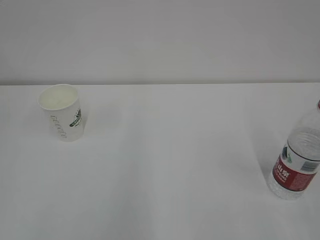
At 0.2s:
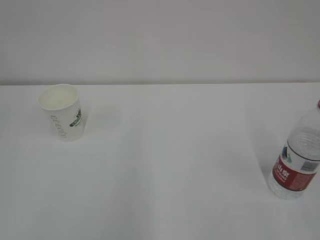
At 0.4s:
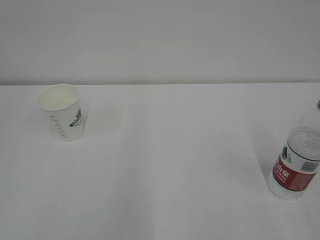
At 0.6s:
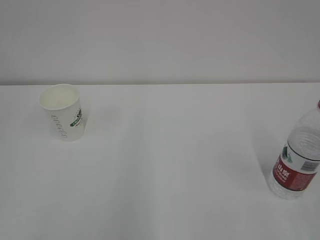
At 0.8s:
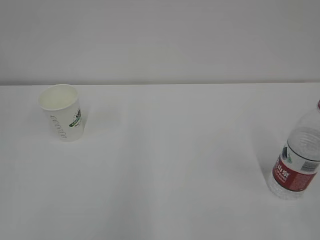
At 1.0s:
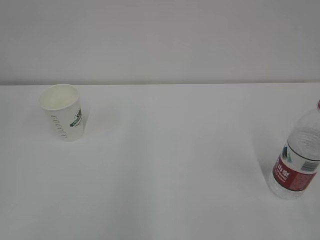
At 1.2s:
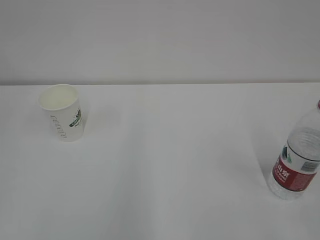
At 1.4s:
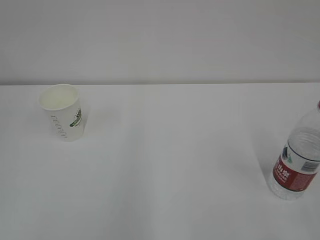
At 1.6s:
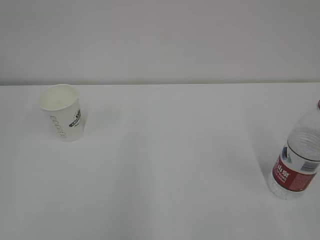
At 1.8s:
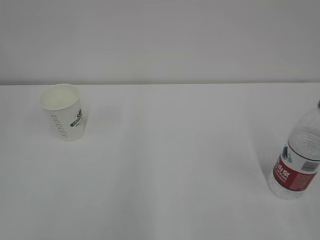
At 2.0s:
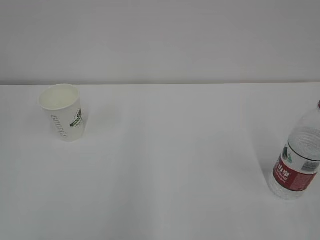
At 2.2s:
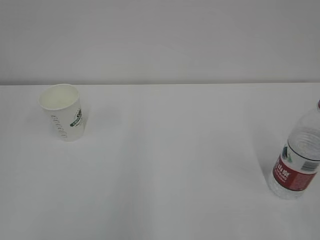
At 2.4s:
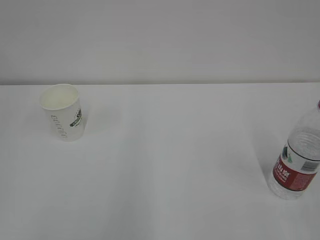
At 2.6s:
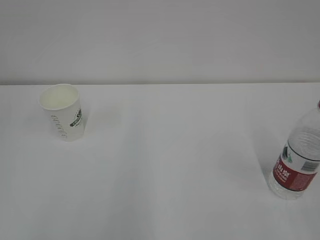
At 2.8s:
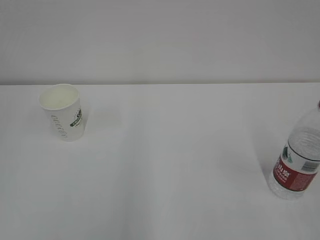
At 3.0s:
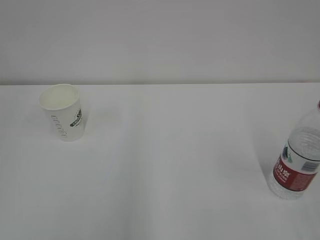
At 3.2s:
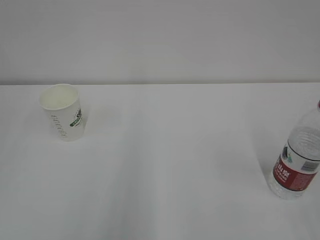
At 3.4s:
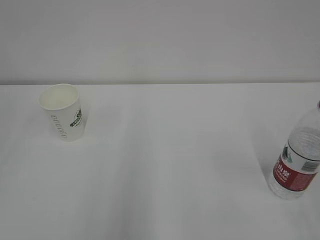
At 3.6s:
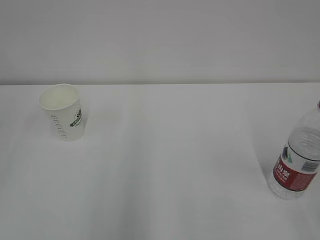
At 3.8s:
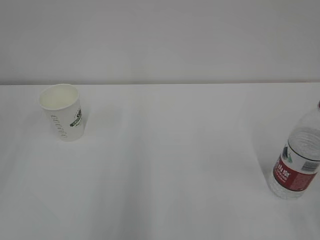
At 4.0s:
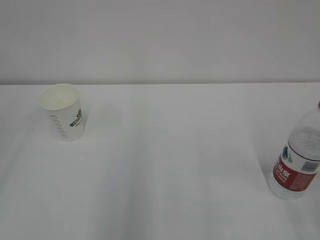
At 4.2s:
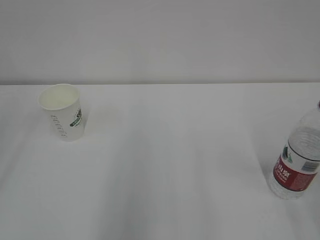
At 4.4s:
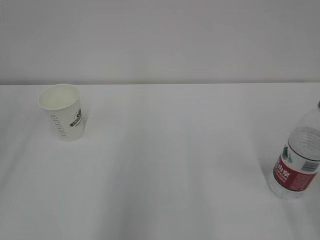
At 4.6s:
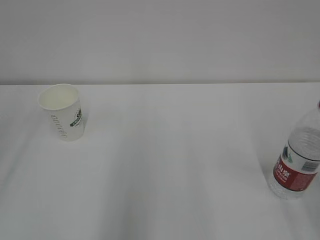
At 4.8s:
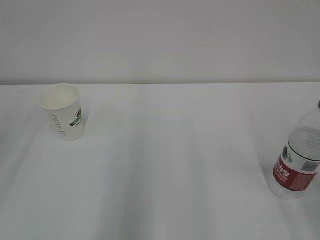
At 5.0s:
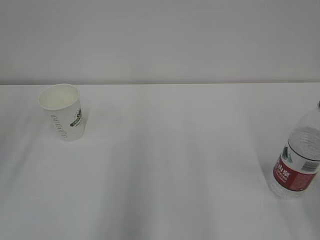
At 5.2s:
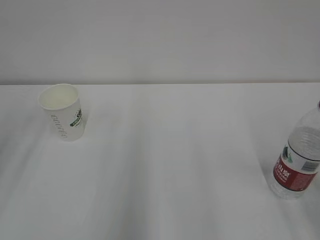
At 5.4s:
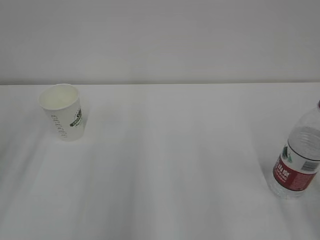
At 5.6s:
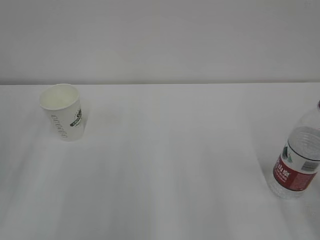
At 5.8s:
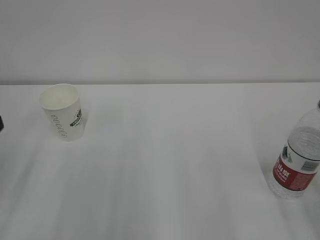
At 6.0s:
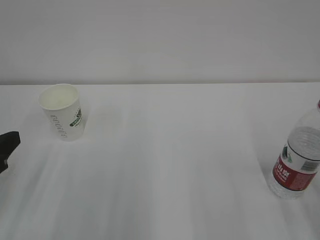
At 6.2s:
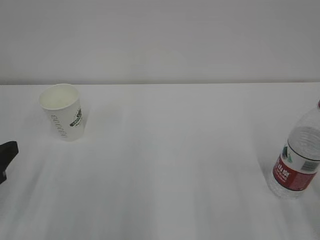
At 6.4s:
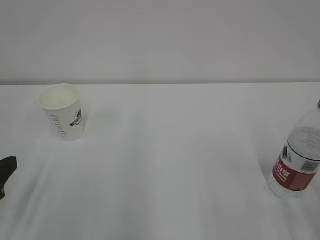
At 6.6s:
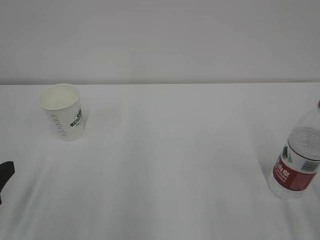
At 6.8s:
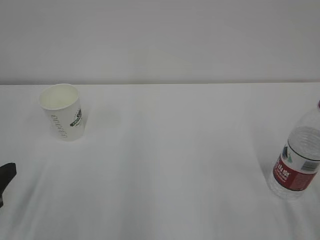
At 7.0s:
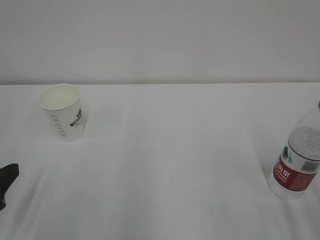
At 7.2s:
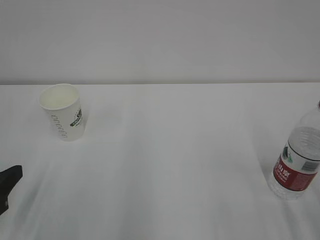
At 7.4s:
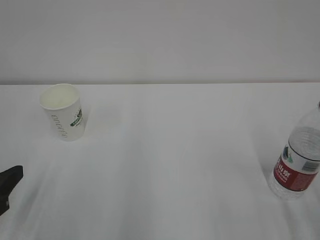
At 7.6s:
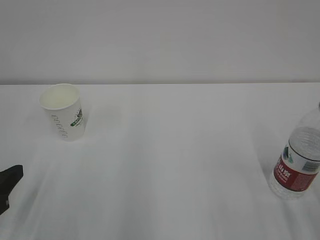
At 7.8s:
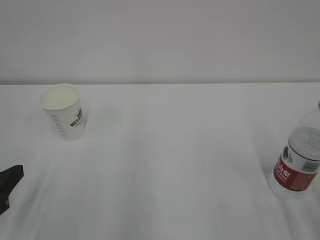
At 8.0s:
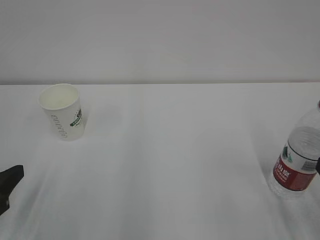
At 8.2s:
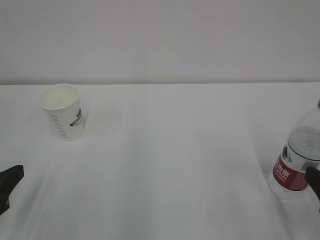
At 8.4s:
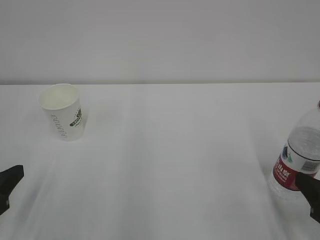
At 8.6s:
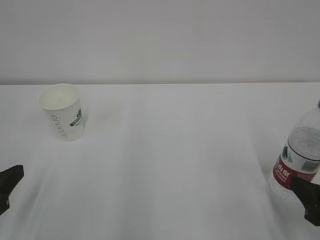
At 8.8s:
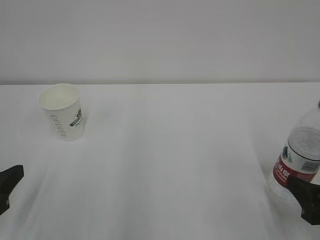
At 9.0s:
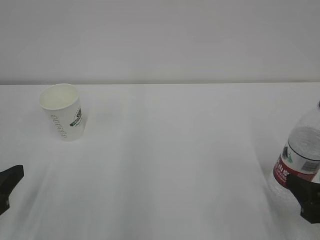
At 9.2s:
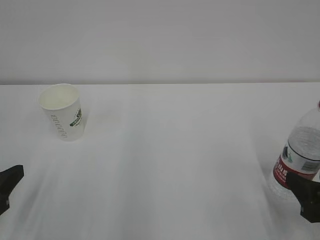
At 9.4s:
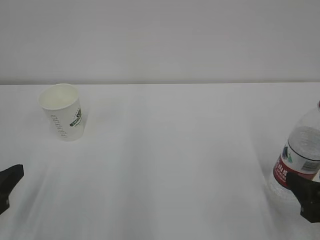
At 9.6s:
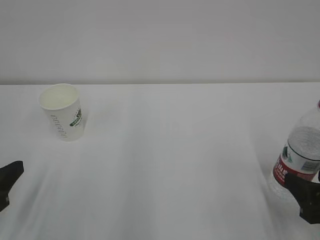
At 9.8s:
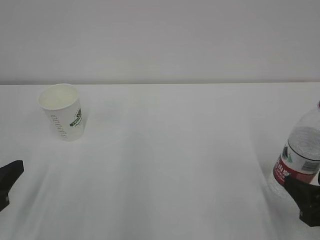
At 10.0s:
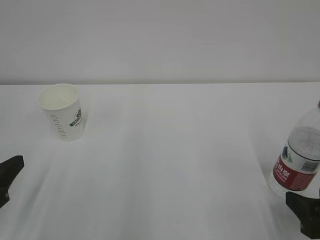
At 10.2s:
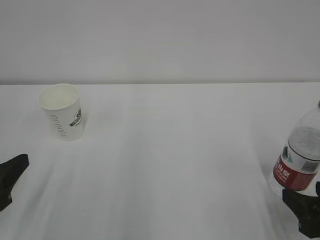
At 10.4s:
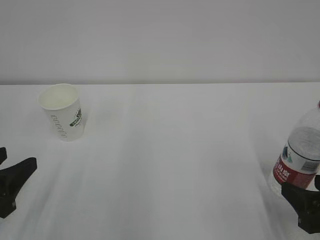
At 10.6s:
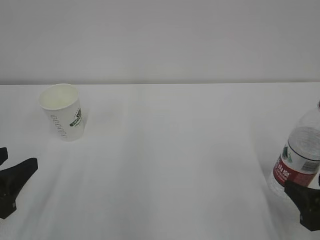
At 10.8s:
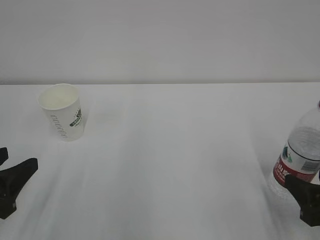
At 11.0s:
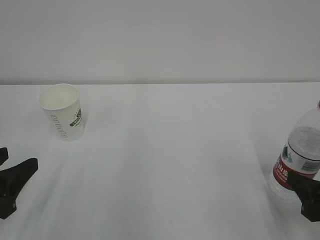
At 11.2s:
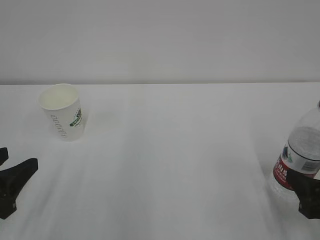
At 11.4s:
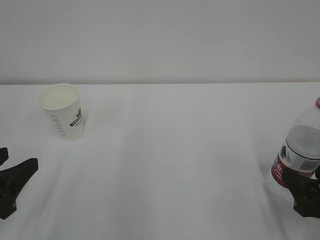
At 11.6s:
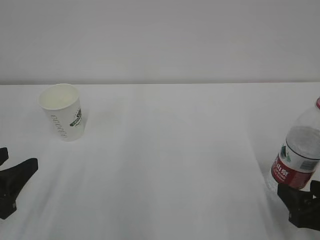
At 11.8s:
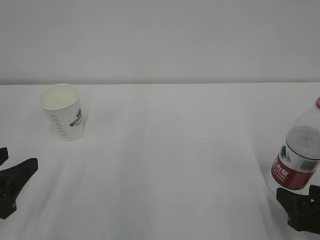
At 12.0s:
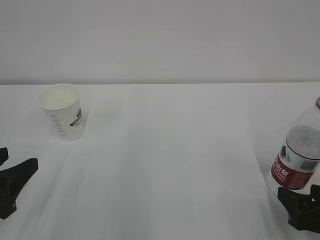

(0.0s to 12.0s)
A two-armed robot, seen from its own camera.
4.4s - 6.0s: The left gripper heads downward, covering about 15 cm.
6.0s - 7.6s: The grippers stay close to where they were, moving slightly.
7.6s - 9.0s: The right gripper travels downward by about 5 cm.
9.0s - 12.0s: There are only small adjustments of the grippers.

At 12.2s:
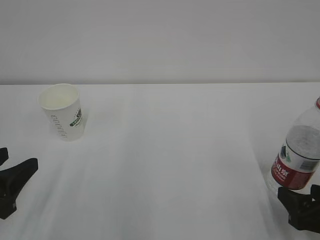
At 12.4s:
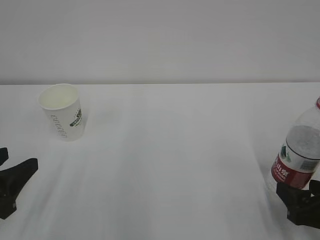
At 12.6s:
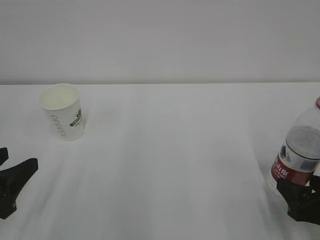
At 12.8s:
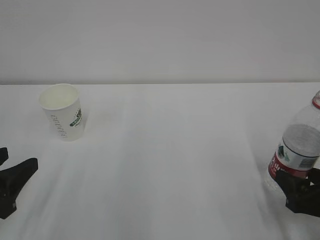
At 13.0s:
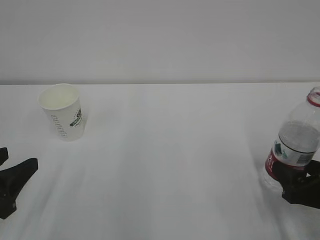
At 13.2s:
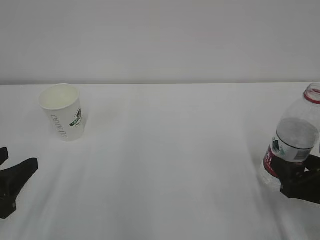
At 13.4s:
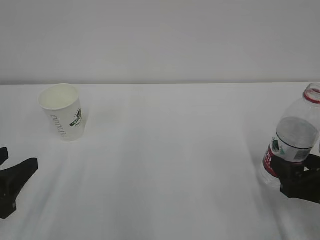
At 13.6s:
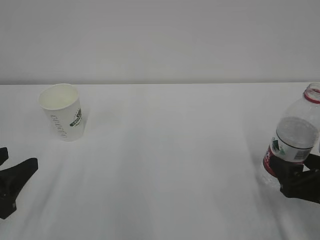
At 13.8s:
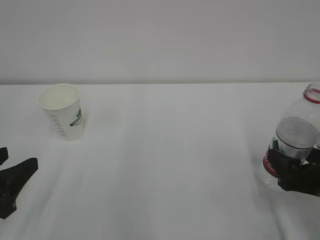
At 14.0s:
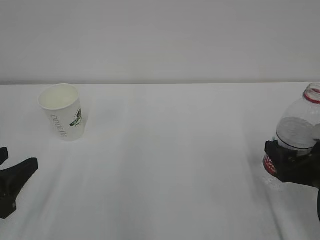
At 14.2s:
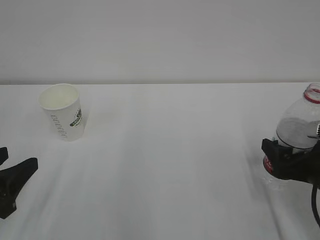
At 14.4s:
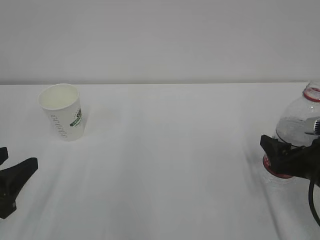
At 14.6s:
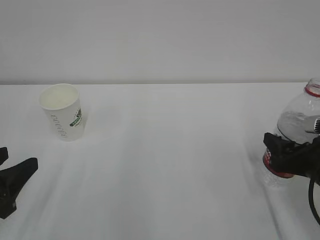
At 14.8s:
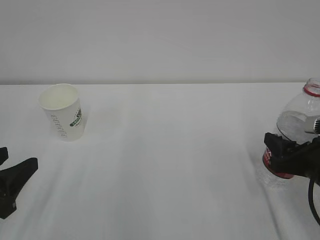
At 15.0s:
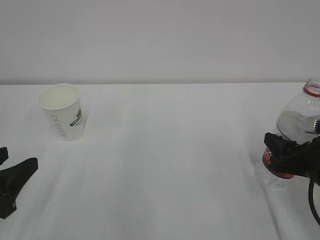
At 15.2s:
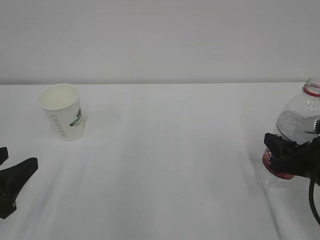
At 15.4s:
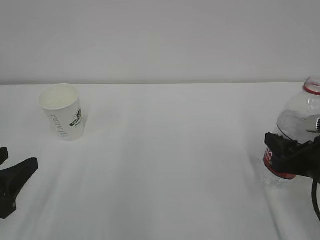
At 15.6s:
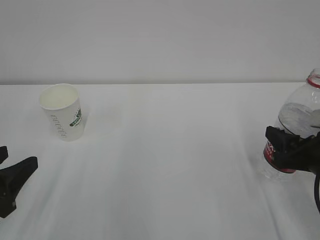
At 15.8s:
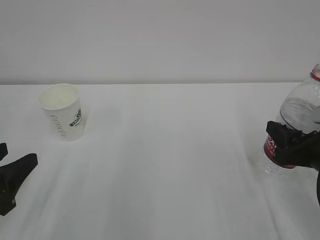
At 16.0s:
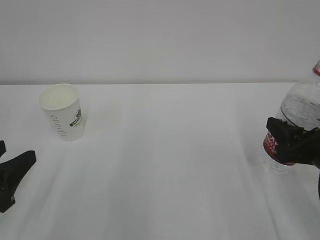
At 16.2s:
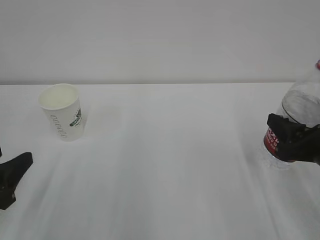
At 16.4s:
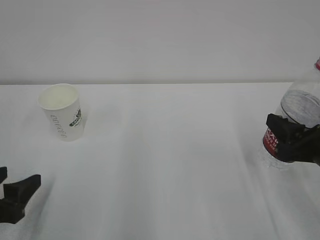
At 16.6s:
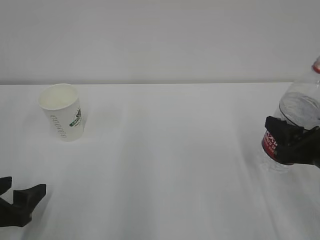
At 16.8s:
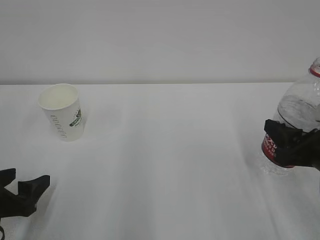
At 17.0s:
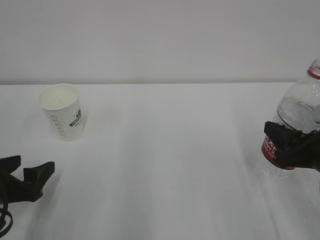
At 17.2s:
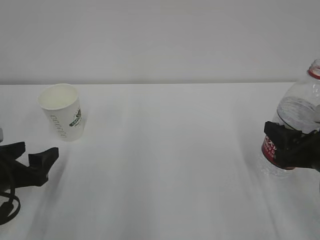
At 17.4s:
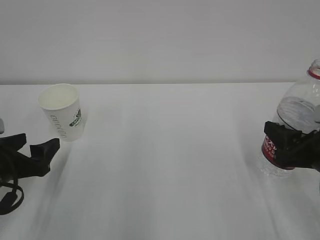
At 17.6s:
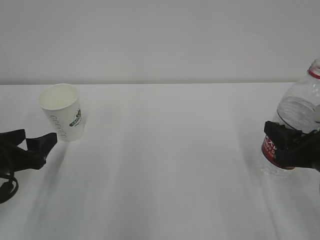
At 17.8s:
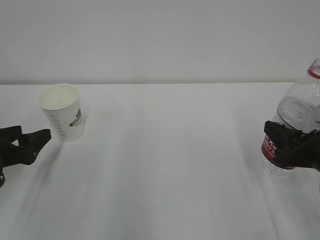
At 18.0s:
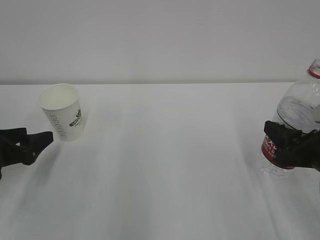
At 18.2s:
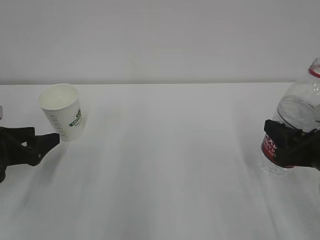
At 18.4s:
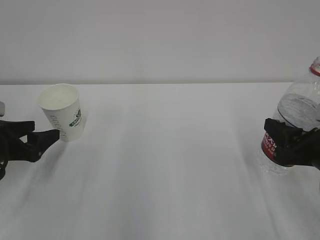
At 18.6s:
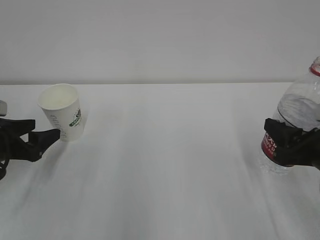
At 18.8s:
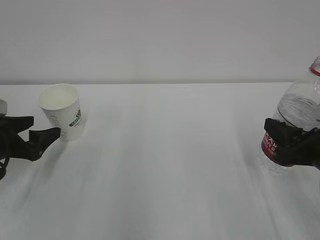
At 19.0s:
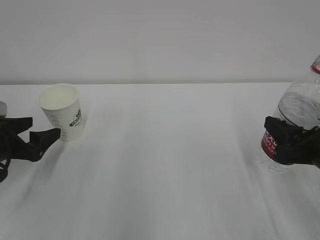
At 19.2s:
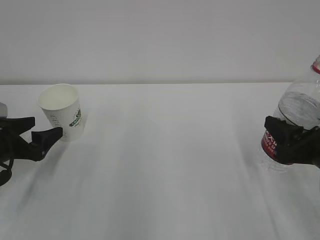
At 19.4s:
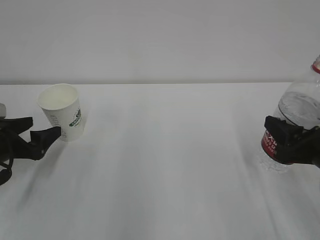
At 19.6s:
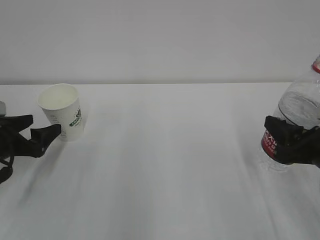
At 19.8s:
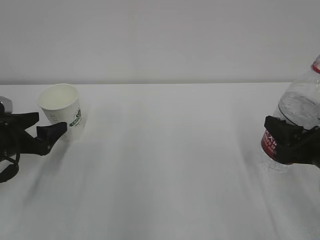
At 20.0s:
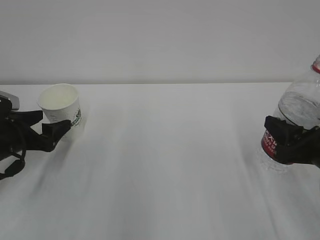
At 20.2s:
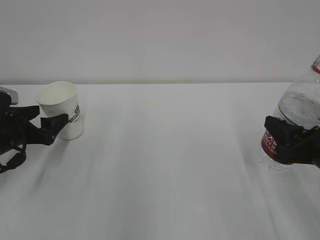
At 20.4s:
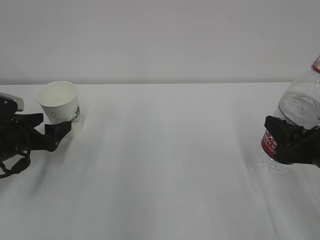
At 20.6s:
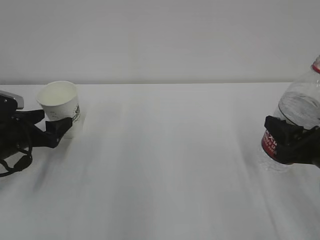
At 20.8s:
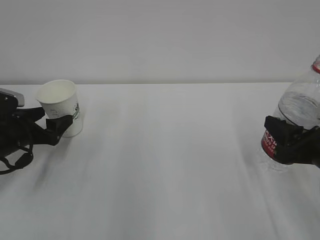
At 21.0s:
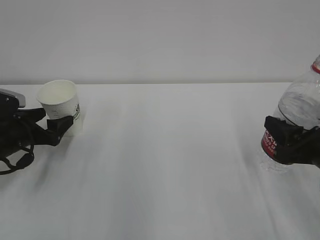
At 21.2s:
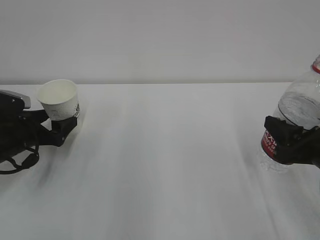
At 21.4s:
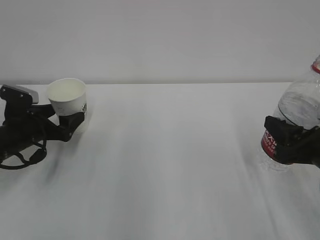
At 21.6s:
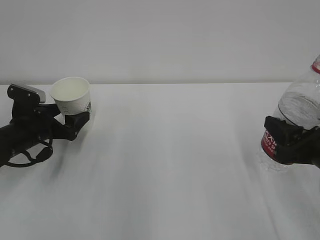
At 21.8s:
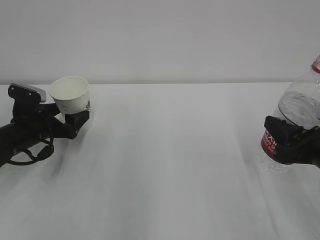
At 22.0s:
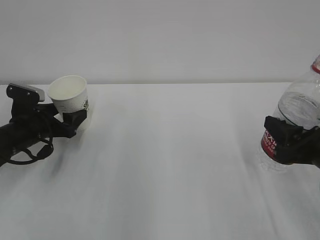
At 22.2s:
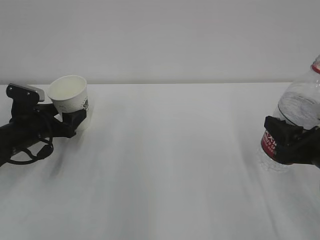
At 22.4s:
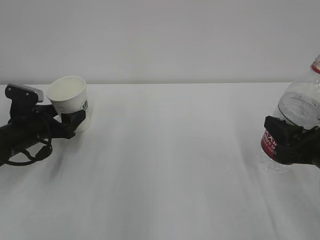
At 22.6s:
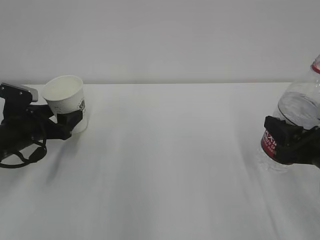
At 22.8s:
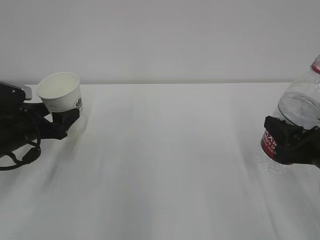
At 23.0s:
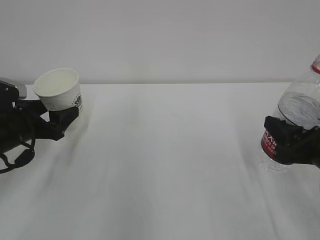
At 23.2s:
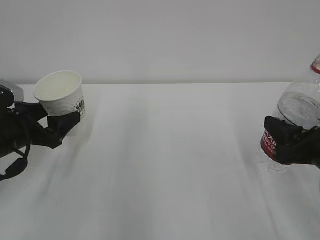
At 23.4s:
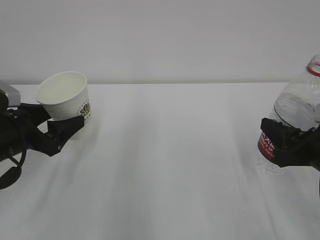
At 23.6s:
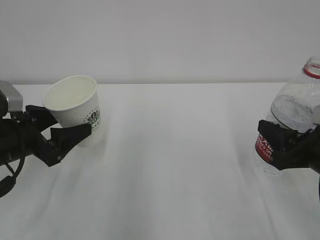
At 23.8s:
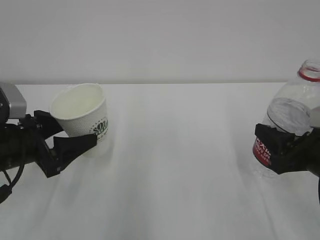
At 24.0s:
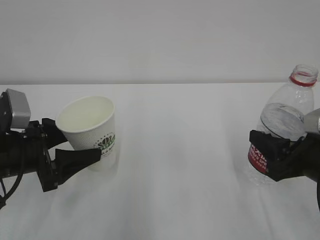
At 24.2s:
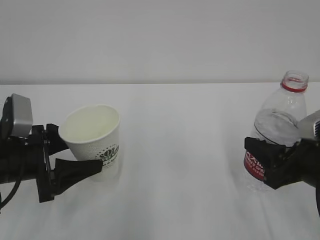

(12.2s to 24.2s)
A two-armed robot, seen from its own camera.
12.2s - 13.8s: The grippers make only small movements.
13.8s - 15.2s: The right gripper closes up.
15.2s - 16.6s: The left gripper shifts some 5 cm downward, and opens up.
16.6s - 18.2s: The left gripper shifts about 10 cm forward.
18.2s - 19.8s: The left gripper opens up.
19.8s - 21.2s: There are only small adjustments of the grippers.
21.2s - 22.6s: The left gripper closes up.
22.6s - 24.2s: The left gripper moves backward, approximately 10 cm.
